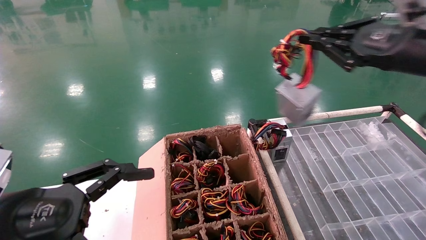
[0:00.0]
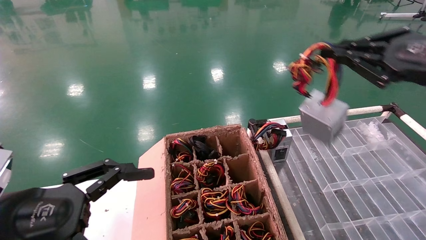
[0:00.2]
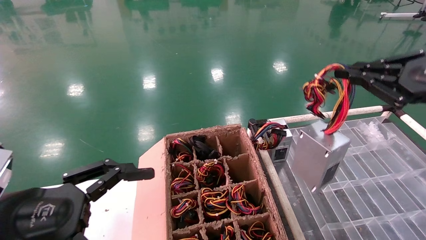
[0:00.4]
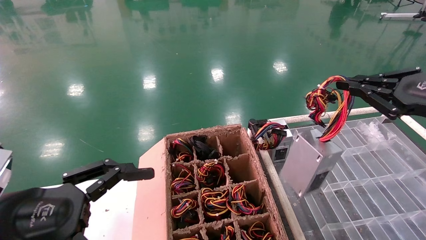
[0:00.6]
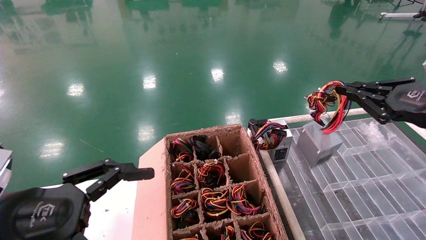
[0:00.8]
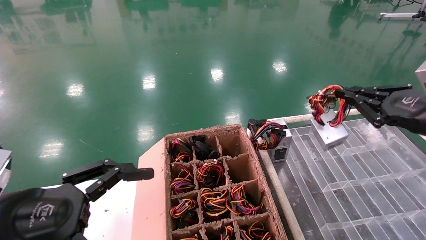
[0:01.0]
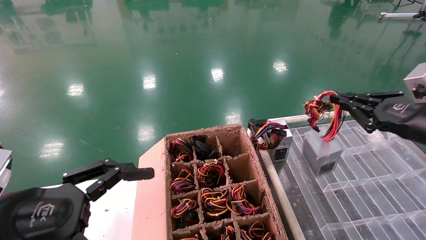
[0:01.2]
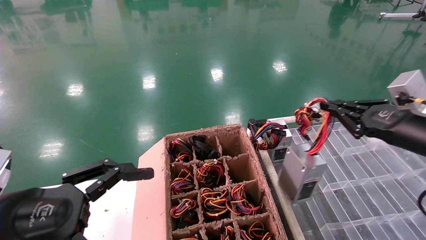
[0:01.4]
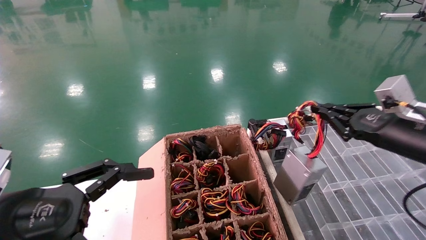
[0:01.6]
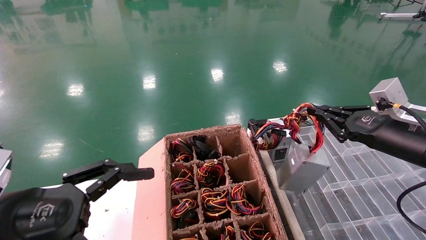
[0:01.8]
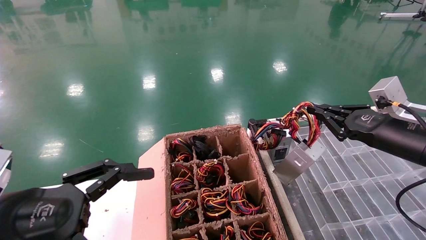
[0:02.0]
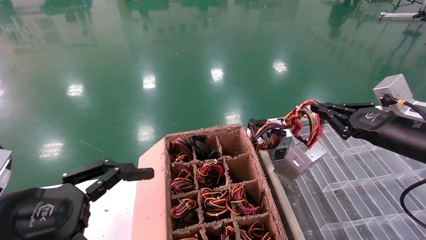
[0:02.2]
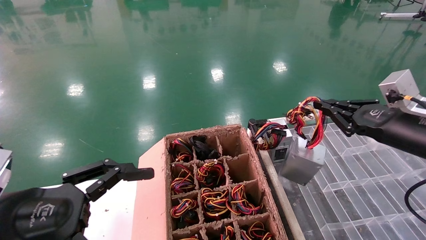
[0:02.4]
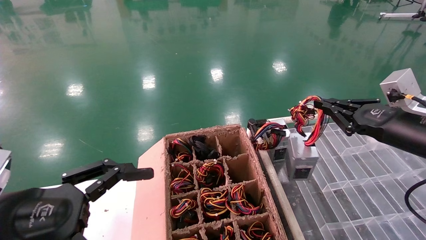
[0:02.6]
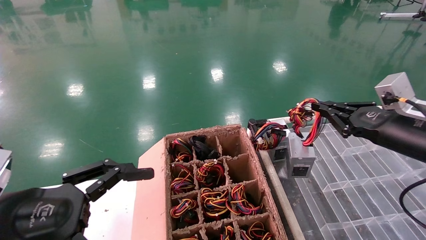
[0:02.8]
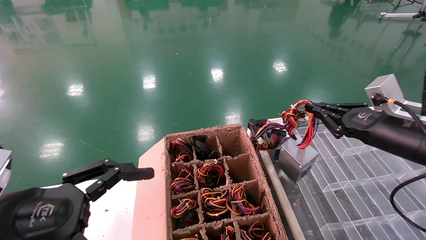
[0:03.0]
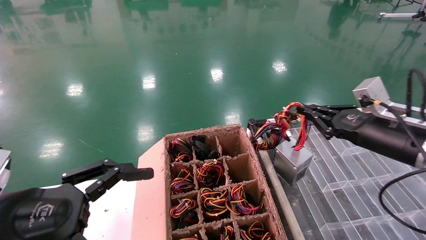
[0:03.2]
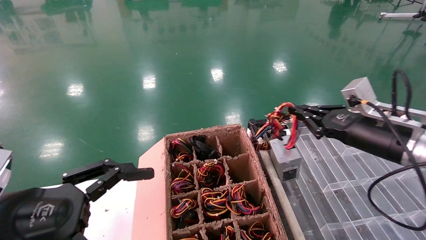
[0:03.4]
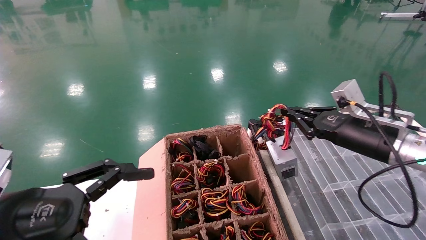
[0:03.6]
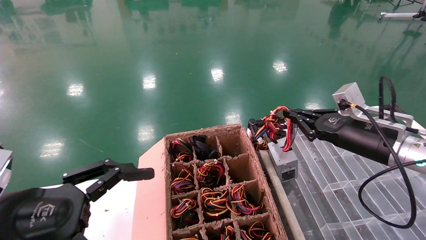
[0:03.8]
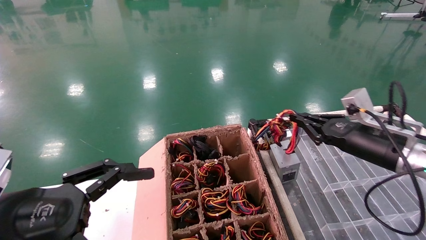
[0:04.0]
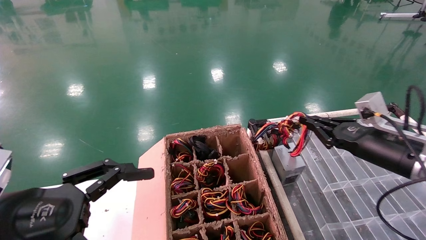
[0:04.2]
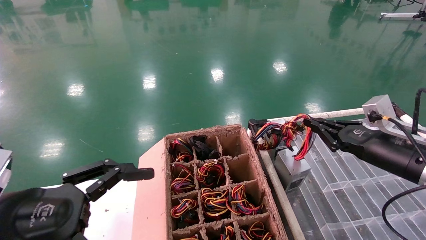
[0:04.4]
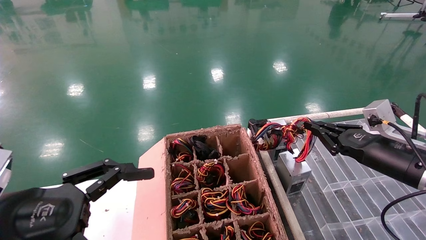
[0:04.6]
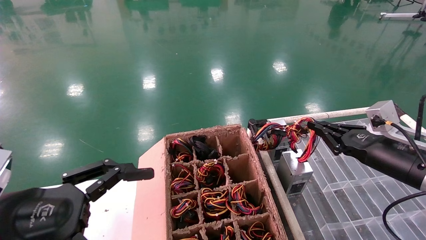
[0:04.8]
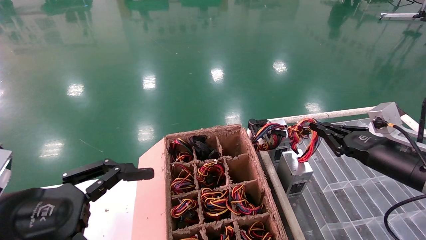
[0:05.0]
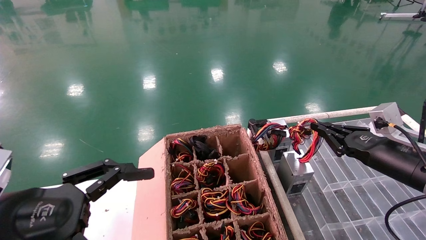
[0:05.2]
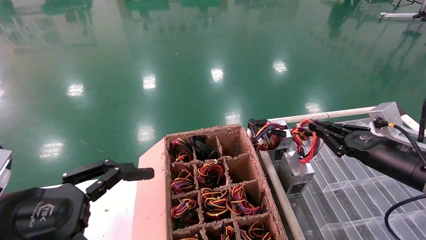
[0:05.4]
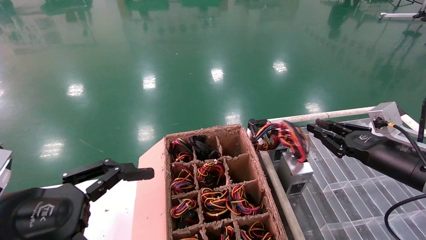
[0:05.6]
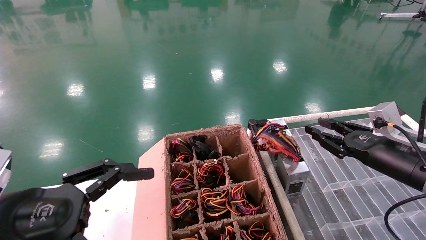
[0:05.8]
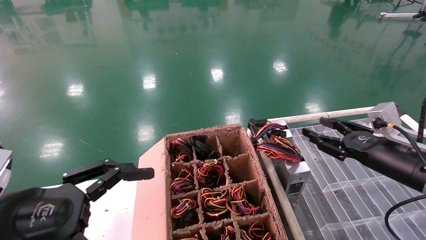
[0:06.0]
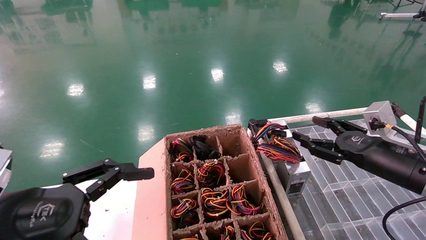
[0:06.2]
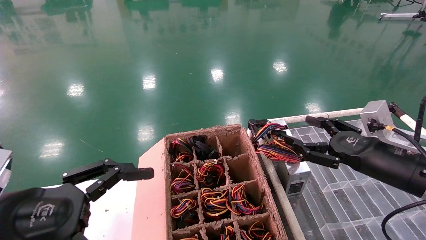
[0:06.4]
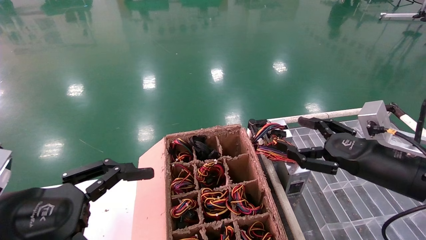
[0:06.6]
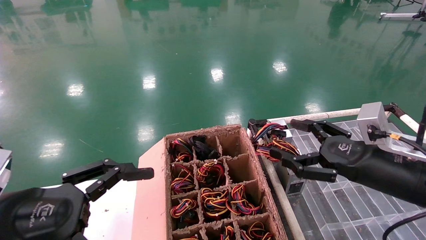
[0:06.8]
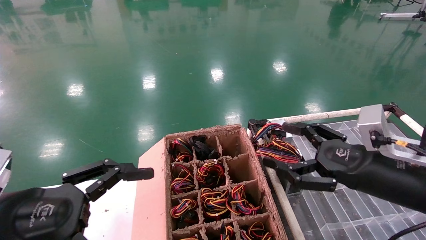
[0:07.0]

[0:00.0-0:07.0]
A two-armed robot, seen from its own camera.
Step, 0:00.0 to 0:05.4: Place the power supply on the operating table.
0:00.0 to 0:01.4: The right gripper goes some 10 cm downward.
0:01.4 to 0:02.8: The grippers make only small movements.
0:02.8 to 0:04.2: The grippers stay close to where they were, moving slightly.
0:04.2 to 0:05.6: The grippers make only small movements.
0:05.6 to 0:07.0: The right gripper travels to the left and backward by about 10 cm, and opens up.

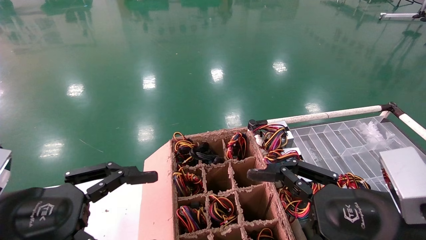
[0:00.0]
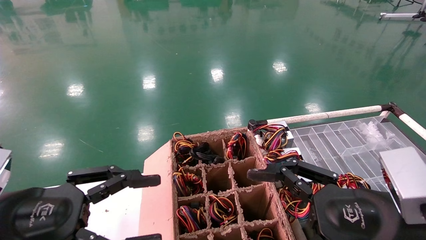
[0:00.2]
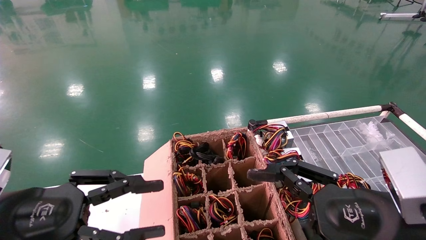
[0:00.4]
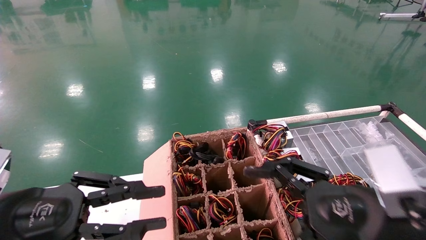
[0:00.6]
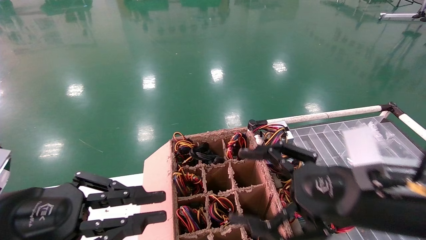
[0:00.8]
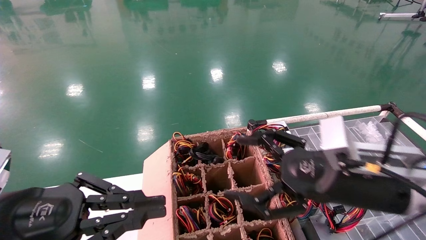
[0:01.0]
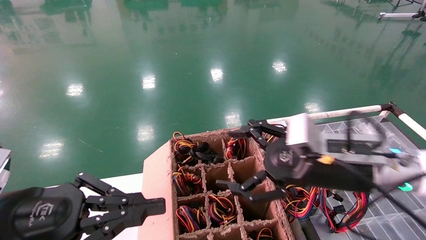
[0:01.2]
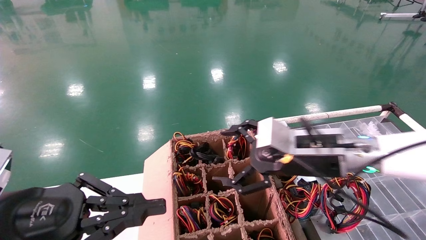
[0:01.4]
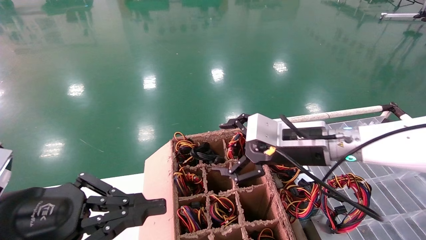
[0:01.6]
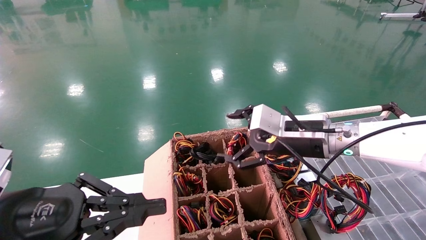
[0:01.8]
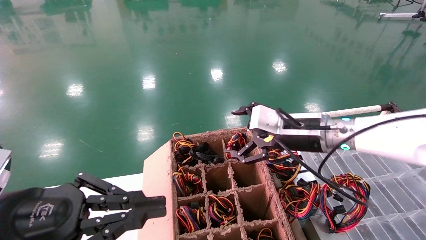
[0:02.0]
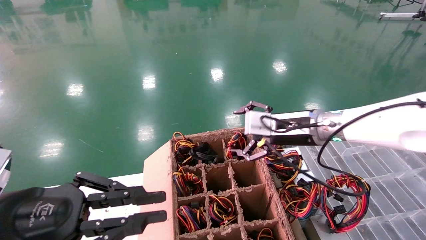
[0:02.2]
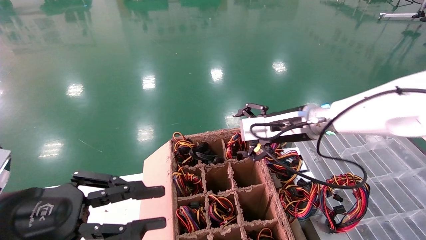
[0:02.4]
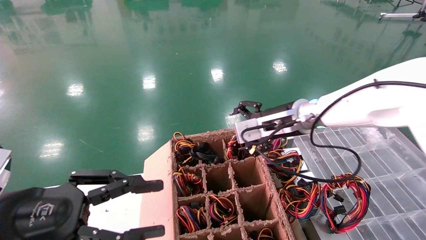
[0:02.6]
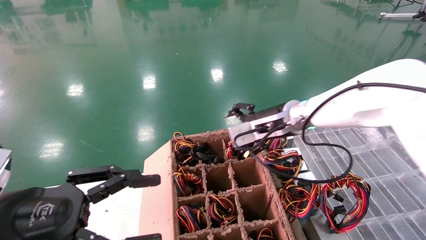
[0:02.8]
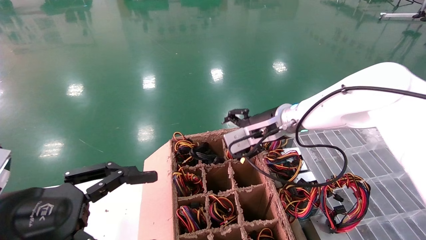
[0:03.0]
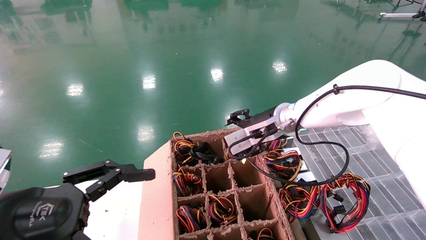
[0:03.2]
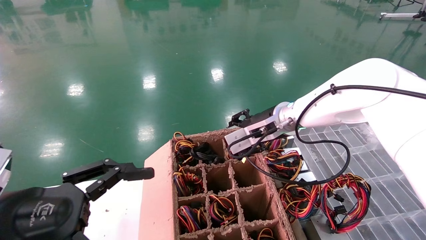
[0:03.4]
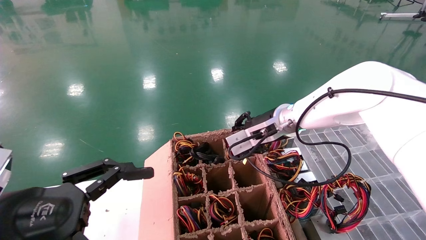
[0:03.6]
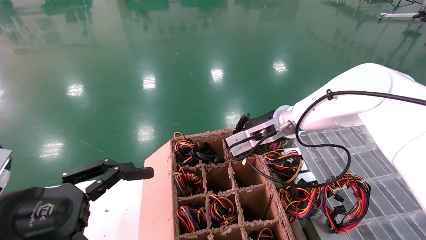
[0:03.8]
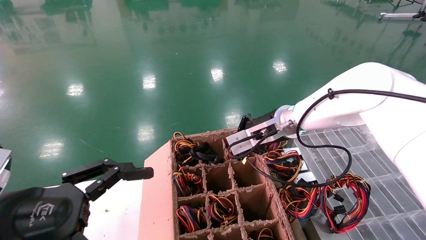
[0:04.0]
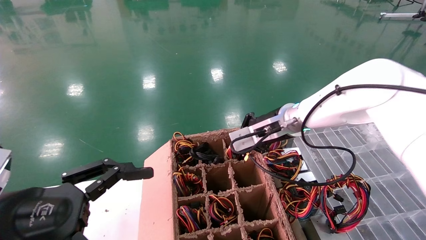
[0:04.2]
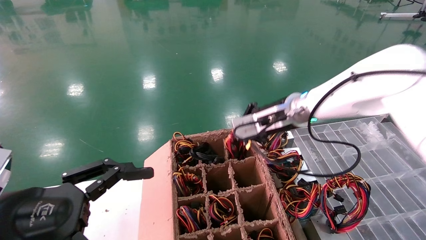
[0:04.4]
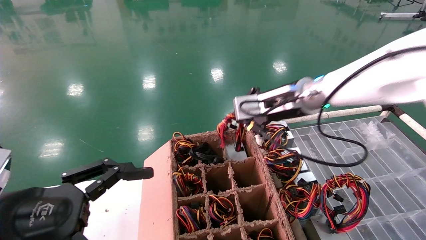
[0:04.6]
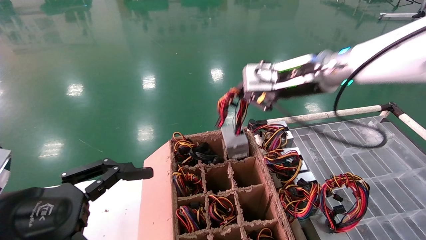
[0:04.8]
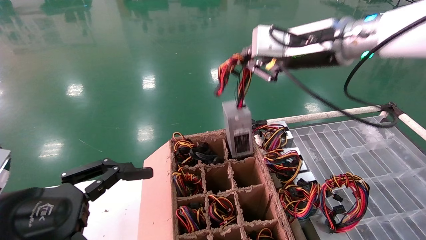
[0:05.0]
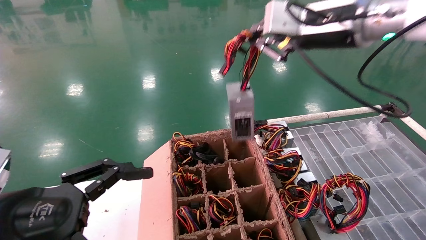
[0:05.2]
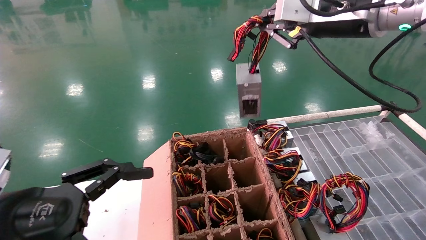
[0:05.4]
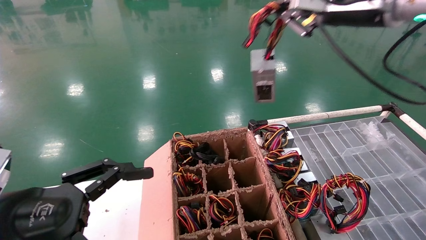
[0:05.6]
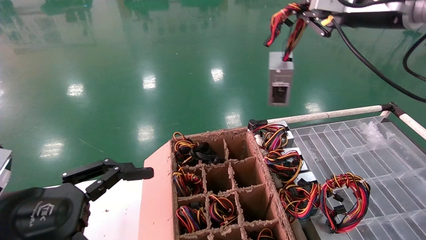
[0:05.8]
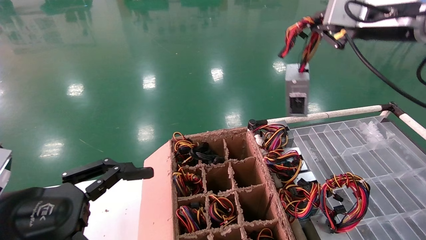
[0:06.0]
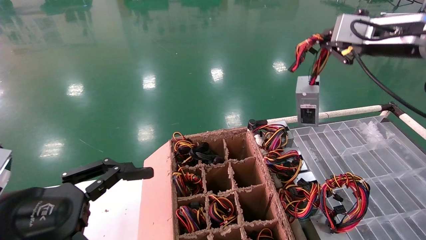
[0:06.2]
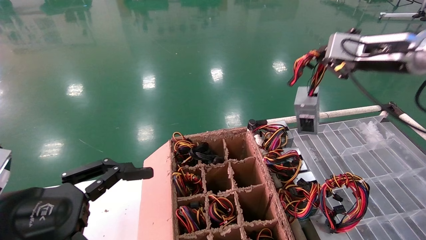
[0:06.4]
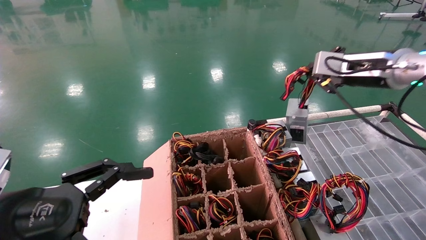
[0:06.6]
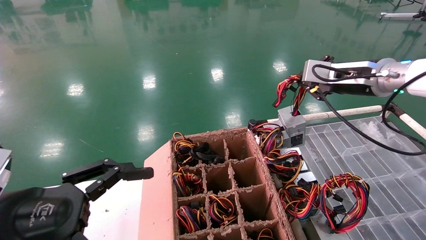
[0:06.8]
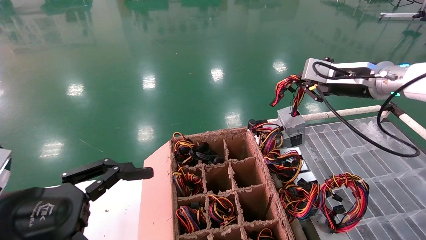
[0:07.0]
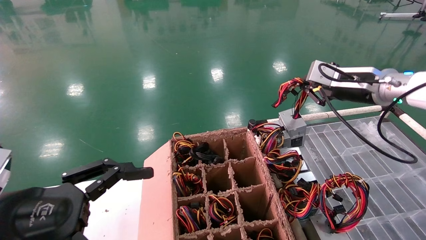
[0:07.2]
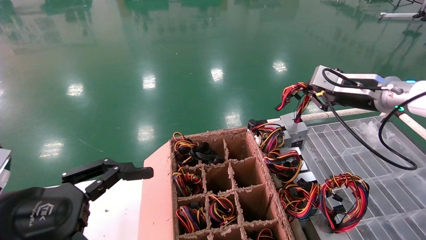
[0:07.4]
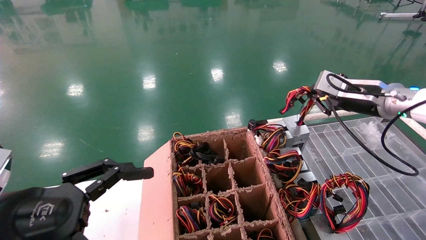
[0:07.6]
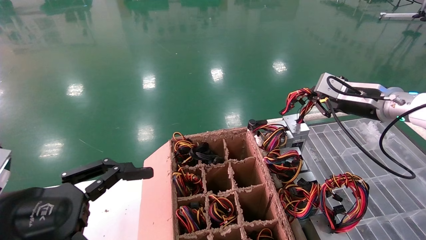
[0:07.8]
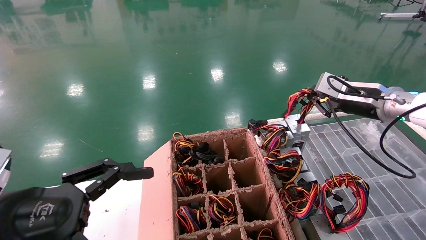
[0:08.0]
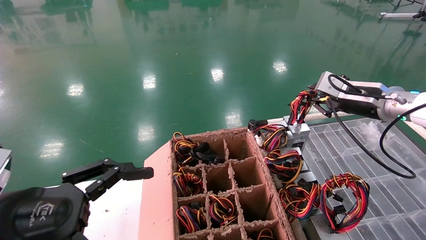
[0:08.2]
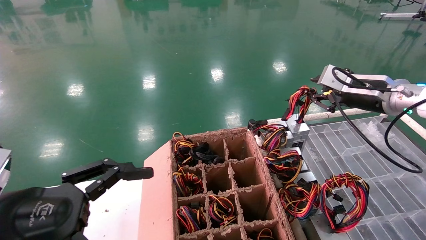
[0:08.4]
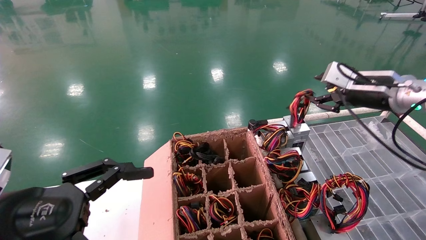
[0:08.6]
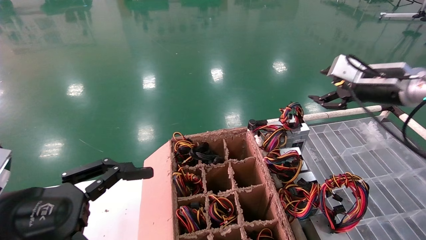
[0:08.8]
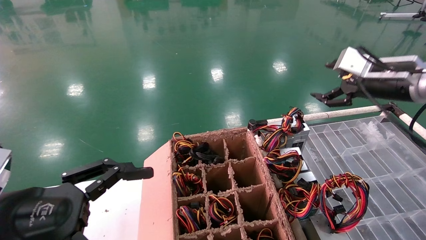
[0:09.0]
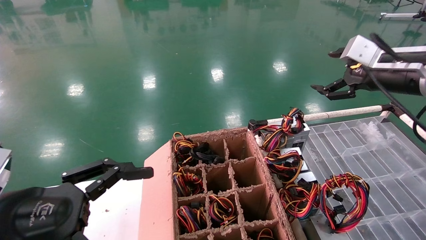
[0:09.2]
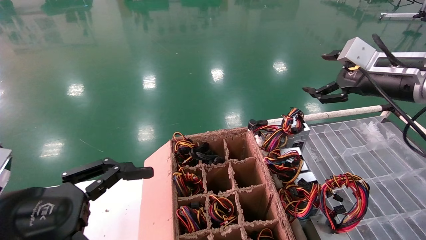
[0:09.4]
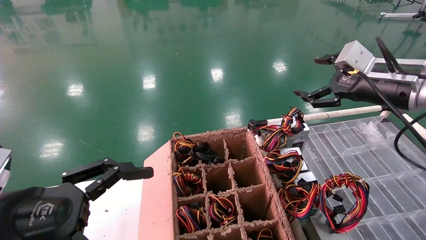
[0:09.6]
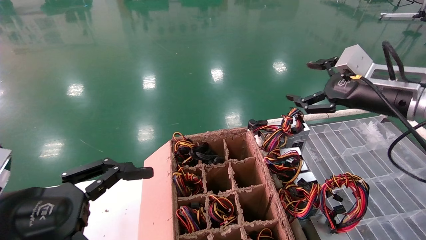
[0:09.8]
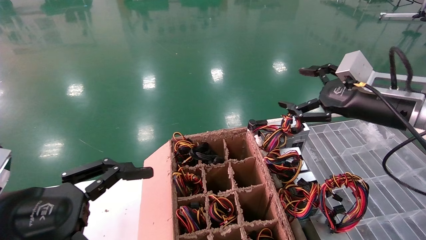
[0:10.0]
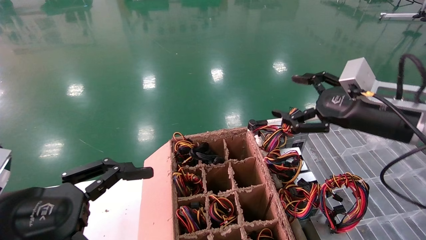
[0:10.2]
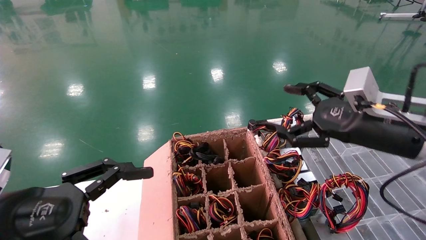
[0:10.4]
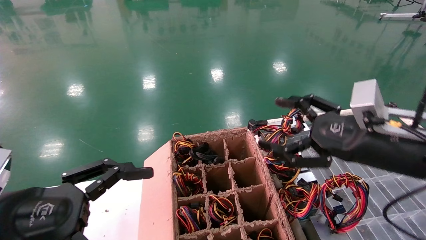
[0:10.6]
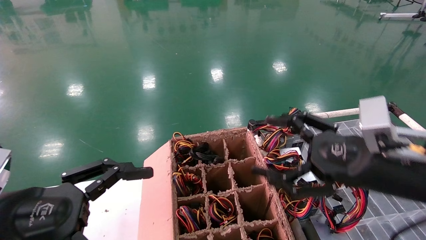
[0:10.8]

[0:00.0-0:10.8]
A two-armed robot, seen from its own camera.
Step, 0:01.4 to 0:04.0: Grab and lift the power supply from the large box.
Step, 0:04.2 to 0:08.2: Place the power supply on the operating table.
0:00.0 to 0:01.6: The left gripper closes its fingers. Meanwhile the right gripper travels forward by approximately 15 cm.
0:01.6 to 0:03.0: The right gripper heads forward, covering roughly 10 cm; the left gripper opens up.
0:03.0 to 0:04.6: The right gripper shifts roughly 5 cm upward, and closes.
0:04.6 to 0:06.2: The right gripper heads to the right and upward, covering some 20 cm.
0:06.2 to 0:07.8: The right gripper heads downward and forward, covering roughly 15 cm.
0:07.8 to 0:09.2: The right gripper shifts by roughly 5 cm, and opens its fingers.
0:09.2 to 0:10.8: The right gripper travels backward, downward and to the left by some 20 cm.
